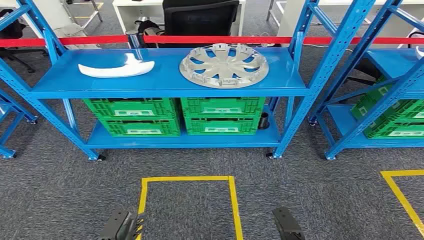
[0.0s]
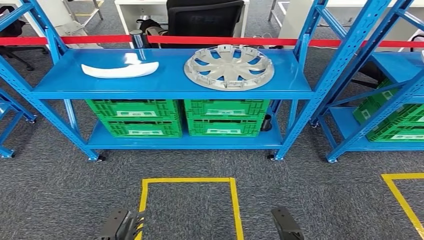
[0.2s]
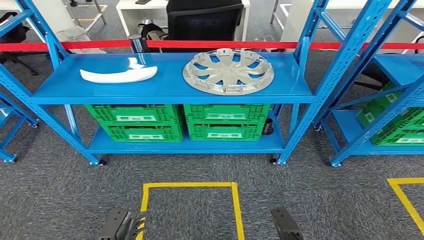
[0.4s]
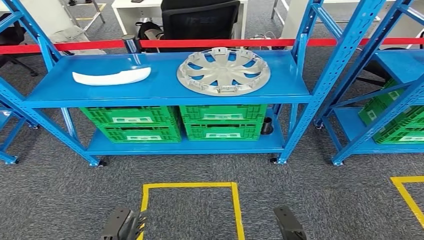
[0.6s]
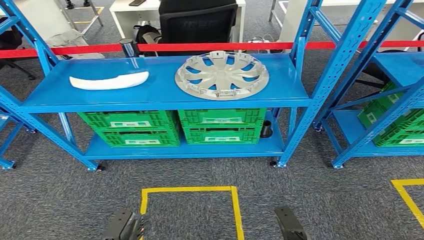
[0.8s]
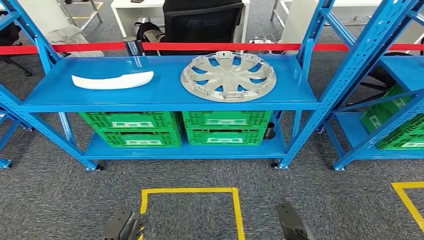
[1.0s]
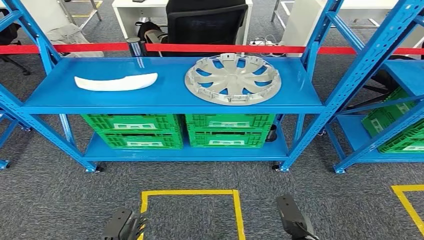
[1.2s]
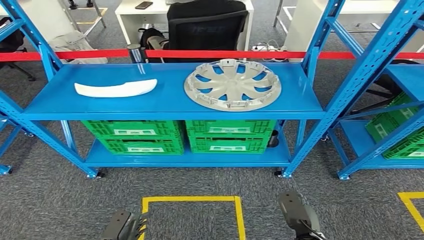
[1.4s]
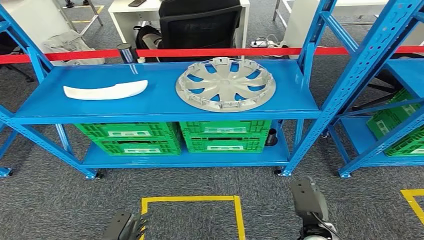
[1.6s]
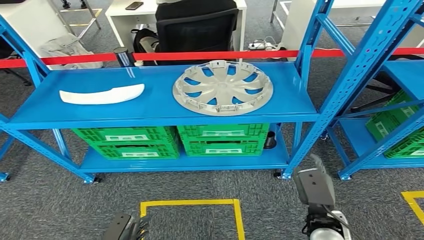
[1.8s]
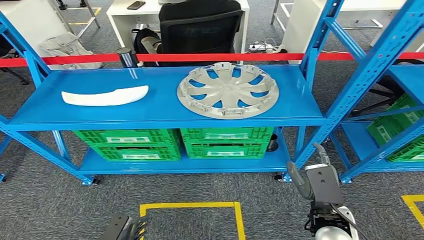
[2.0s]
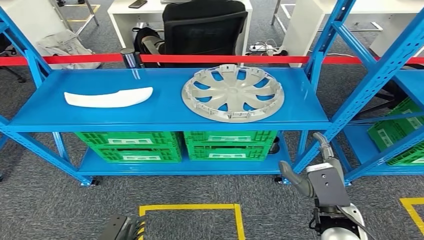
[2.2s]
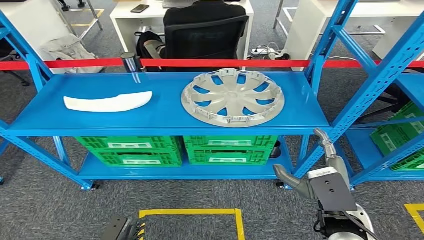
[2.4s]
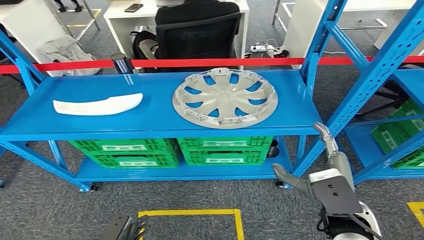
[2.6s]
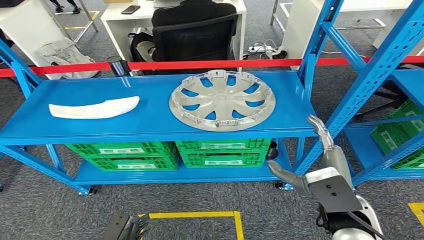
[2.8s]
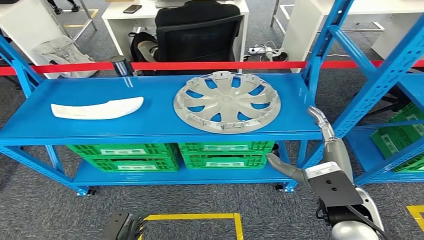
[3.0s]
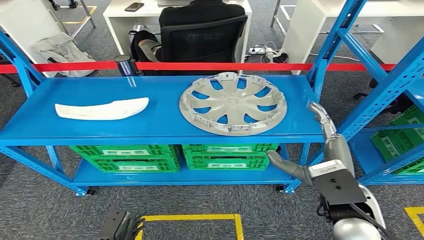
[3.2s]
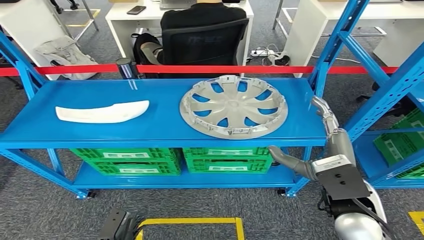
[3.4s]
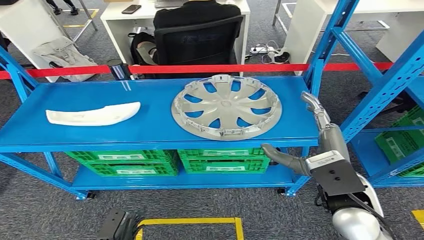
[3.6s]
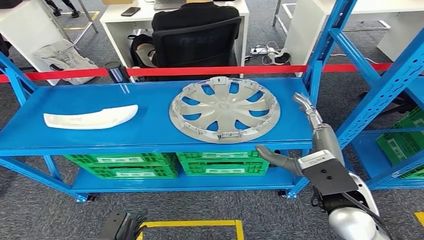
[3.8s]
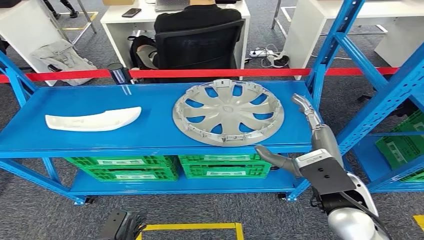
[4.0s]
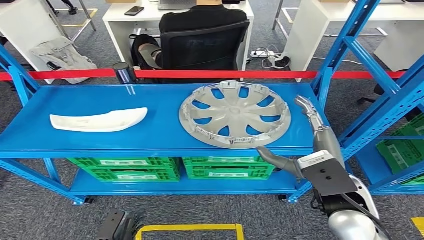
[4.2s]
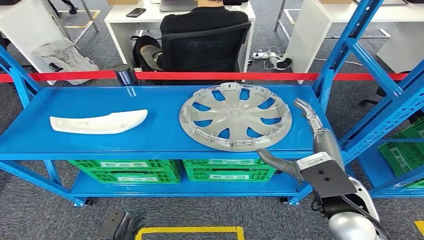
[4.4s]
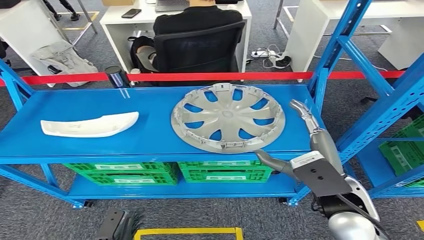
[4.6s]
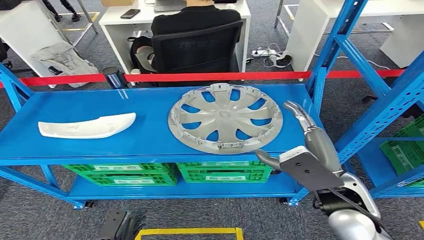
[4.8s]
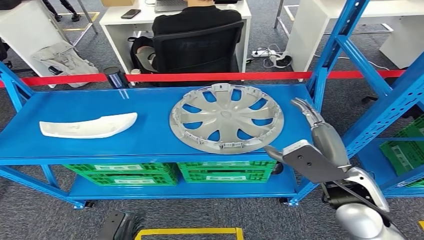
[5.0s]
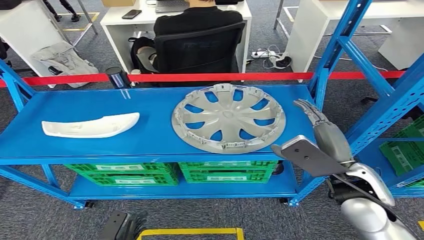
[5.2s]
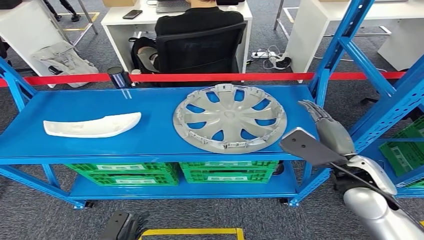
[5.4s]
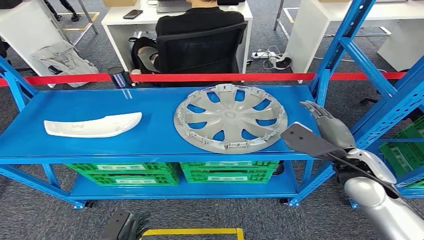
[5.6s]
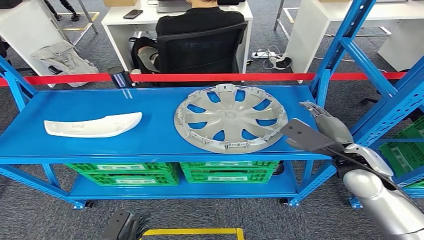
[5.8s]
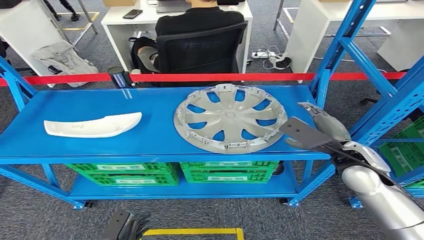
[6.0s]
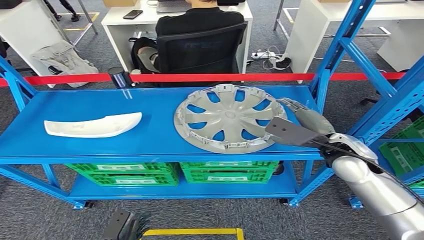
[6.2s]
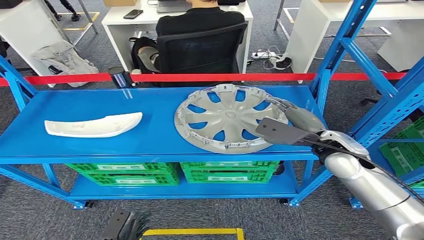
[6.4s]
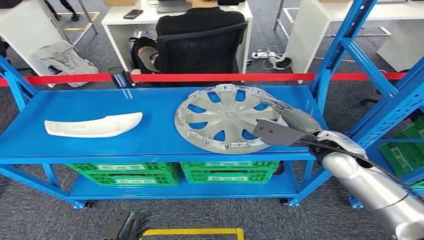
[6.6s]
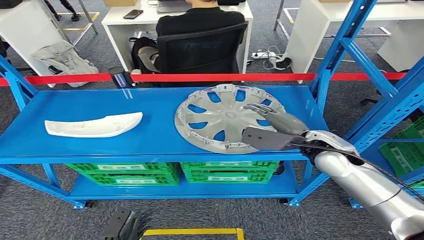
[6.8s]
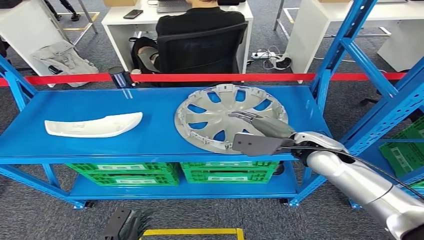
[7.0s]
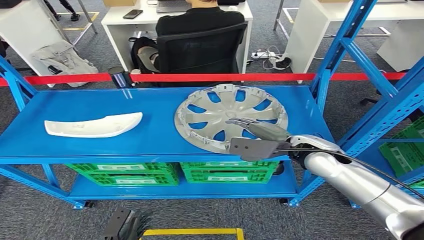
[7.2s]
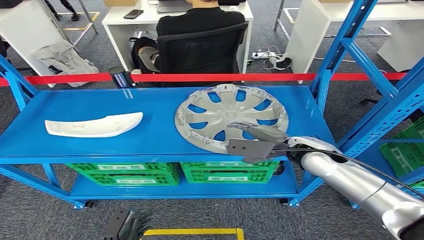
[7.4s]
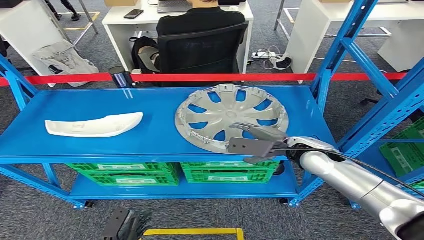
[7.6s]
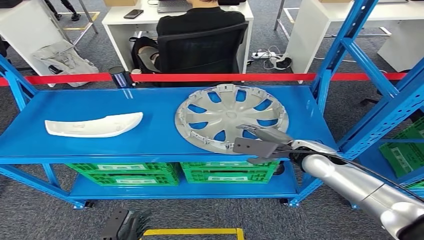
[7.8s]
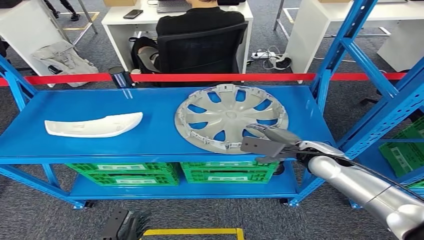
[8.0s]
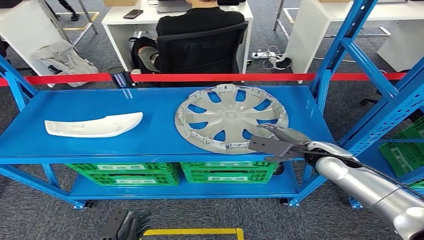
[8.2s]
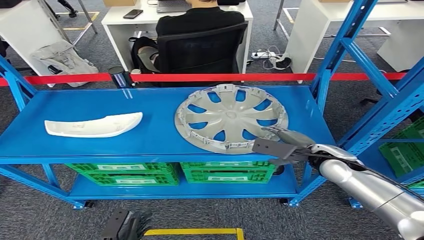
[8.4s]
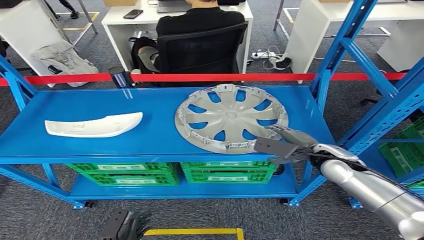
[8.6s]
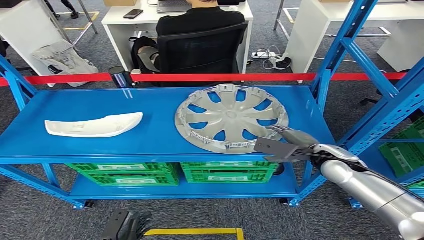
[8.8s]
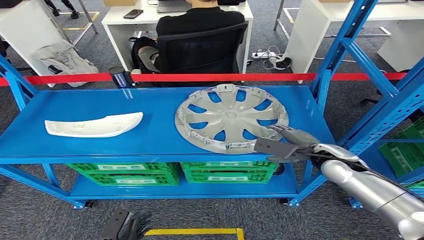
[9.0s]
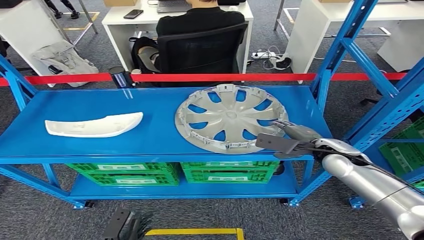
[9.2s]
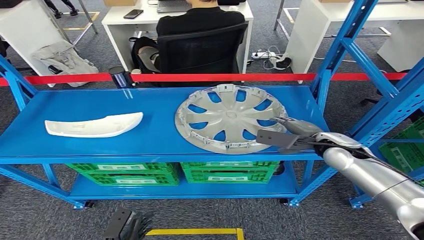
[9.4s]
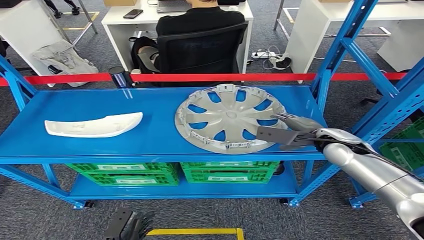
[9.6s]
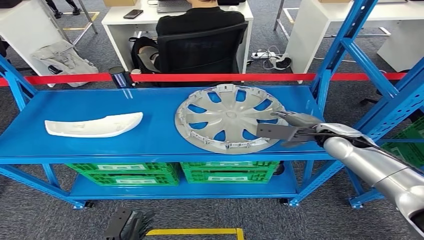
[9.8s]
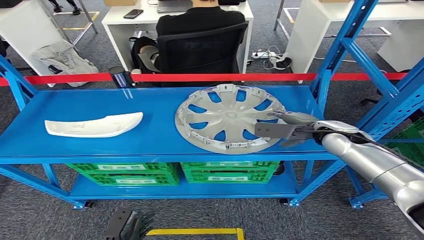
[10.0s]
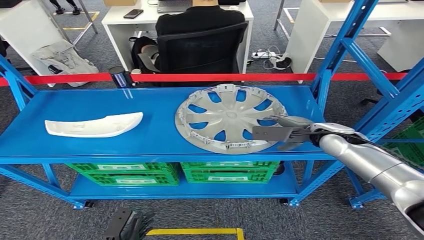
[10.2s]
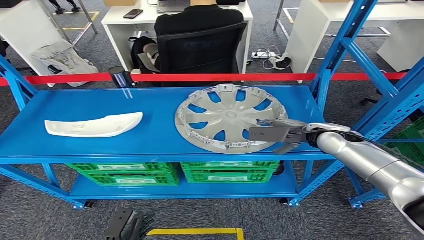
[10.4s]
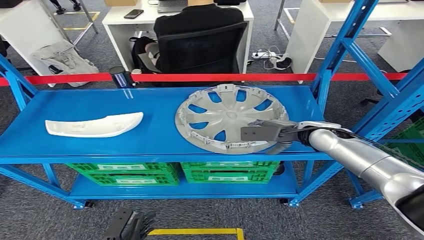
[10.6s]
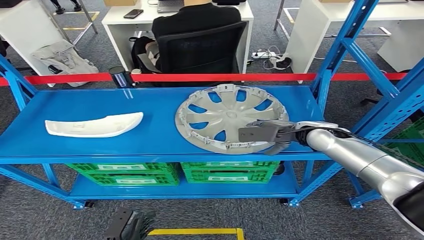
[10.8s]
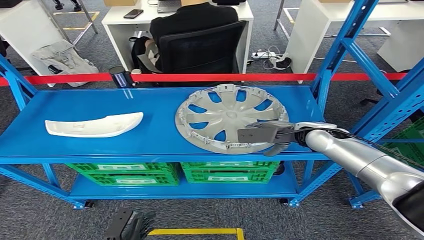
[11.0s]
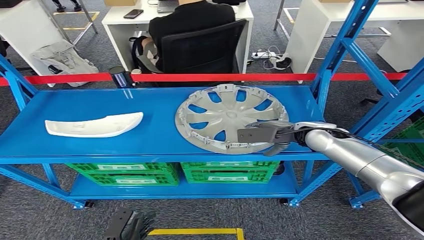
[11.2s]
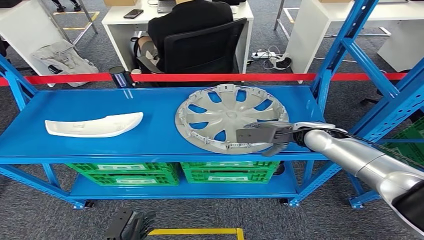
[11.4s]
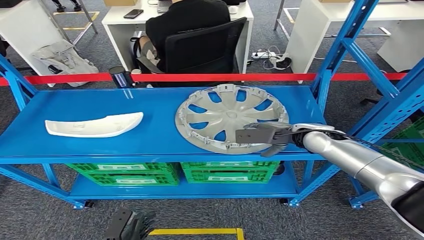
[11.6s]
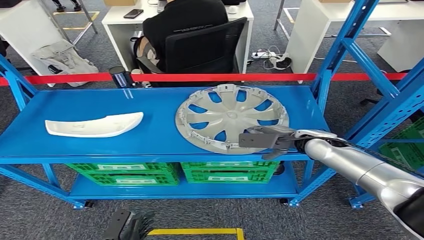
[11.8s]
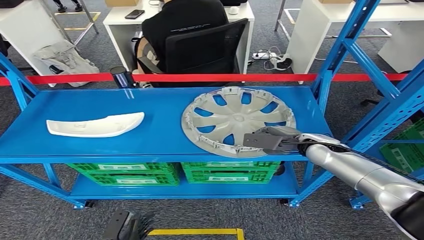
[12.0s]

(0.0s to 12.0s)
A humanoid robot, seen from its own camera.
6.0s - 7.6s: The right hand travels to the left and forward by about 10 cm.
7.6s - 9.0s: The right hand moves to the right, roughly 5 cm.
9.0s - 10.4s: The right hand travels forward by roughly 5 cm.
10.4s - 12.0s: There are only small adjustments of the hands.

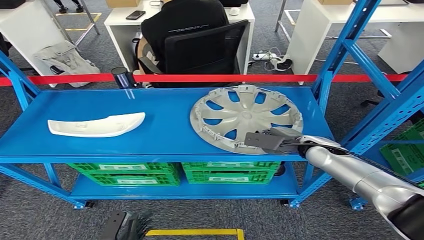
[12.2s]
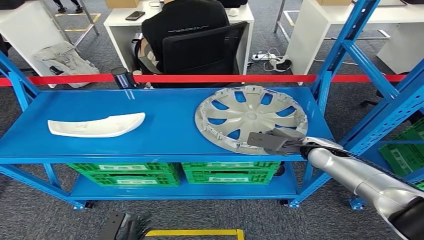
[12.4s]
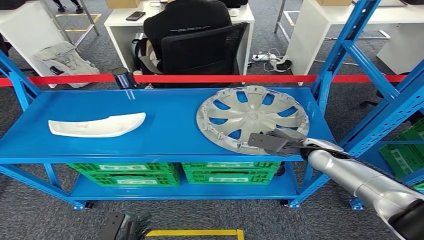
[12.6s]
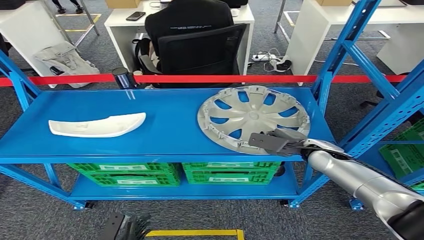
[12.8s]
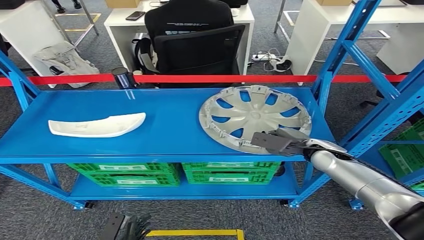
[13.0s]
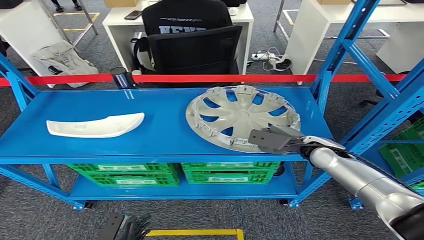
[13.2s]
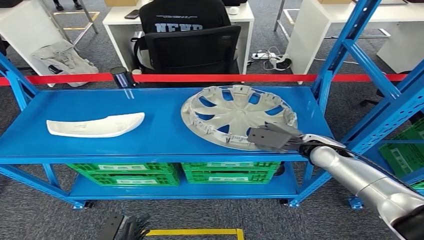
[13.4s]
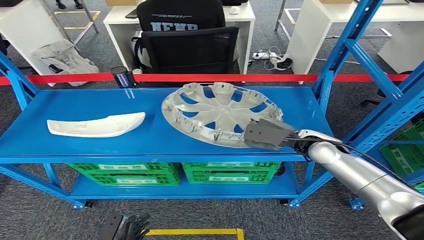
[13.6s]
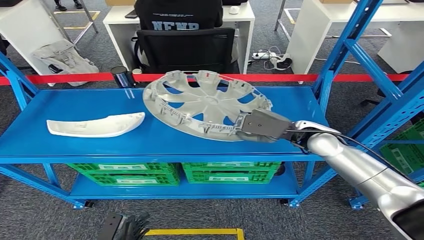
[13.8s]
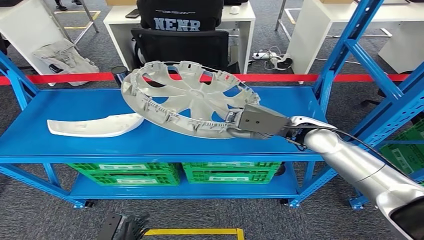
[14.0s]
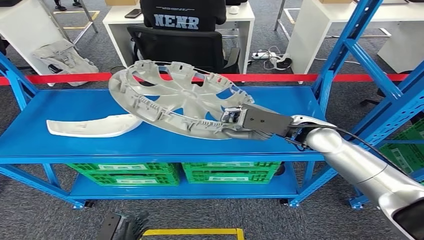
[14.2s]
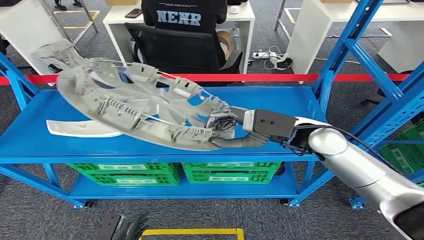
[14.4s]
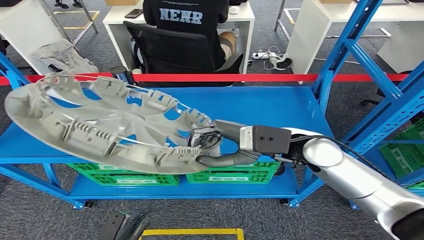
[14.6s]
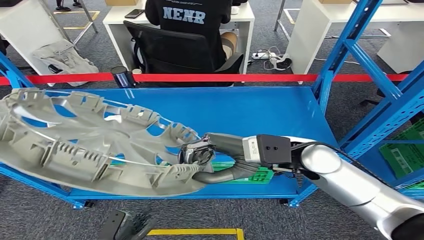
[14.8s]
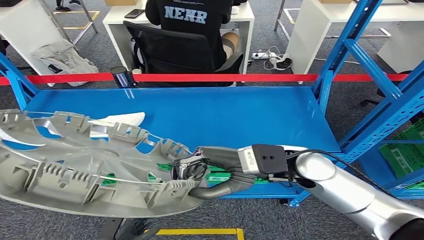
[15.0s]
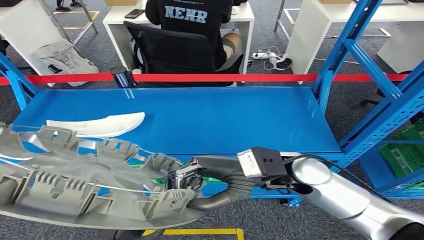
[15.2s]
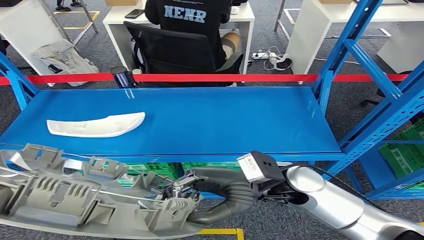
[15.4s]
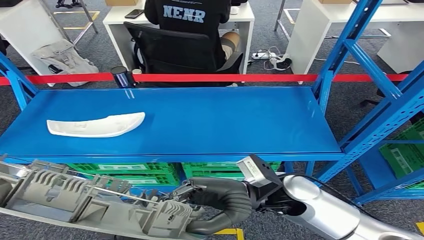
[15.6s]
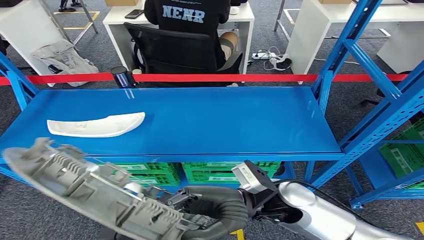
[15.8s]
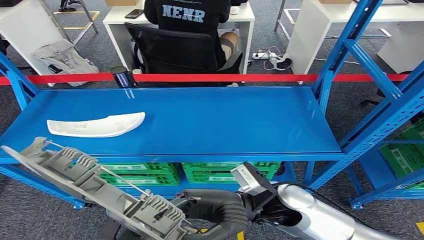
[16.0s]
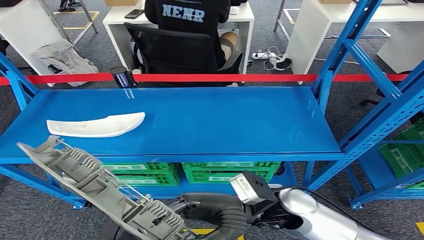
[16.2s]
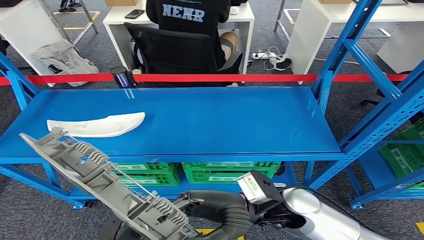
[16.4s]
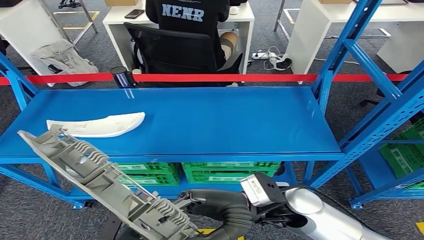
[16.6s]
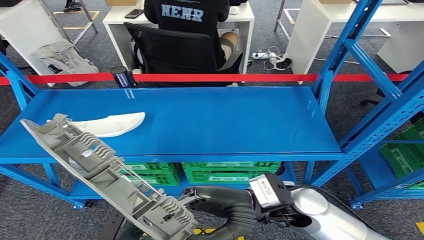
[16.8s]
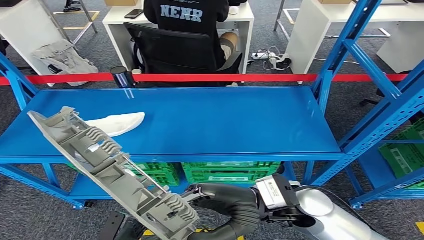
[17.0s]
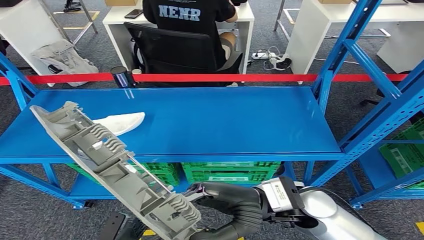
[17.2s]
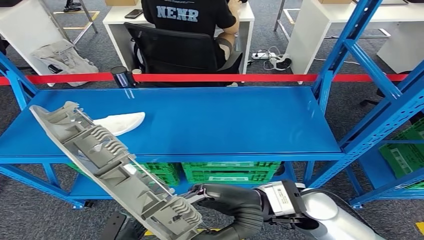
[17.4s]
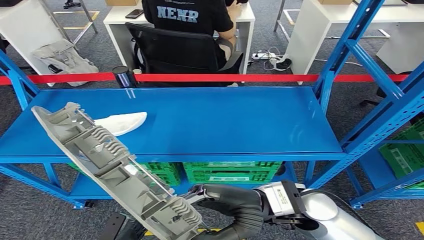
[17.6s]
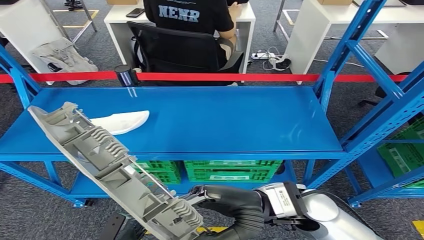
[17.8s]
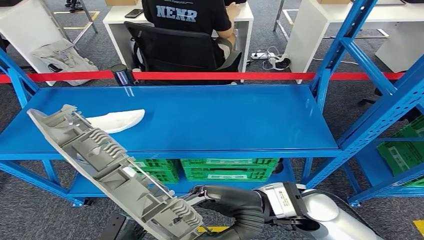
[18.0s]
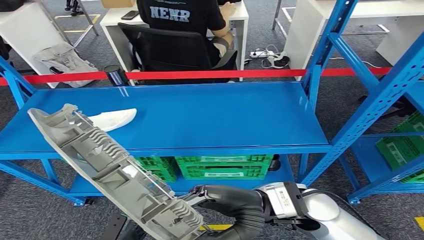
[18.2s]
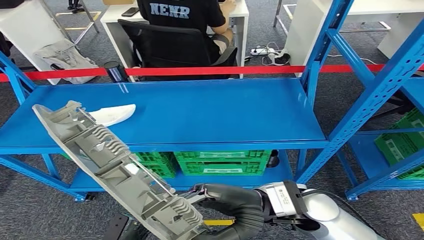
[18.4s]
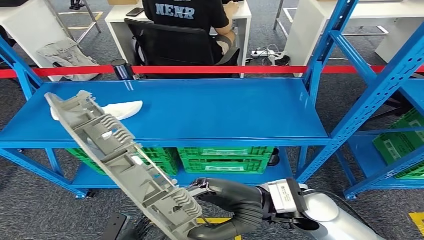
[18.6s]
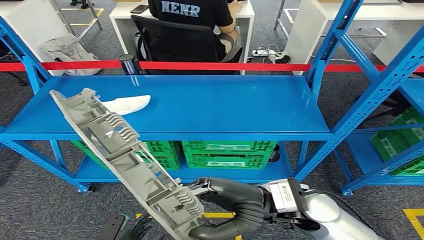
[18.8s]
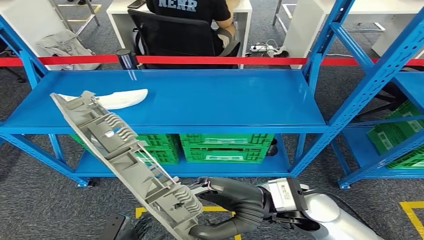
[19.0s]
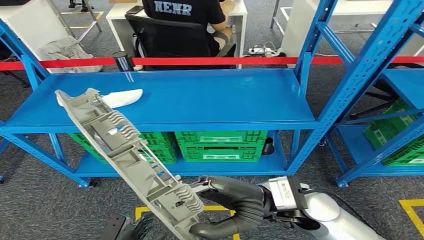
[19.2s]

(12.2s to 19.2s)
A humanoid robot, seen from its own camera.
Step, 12.2s - 15.4s: Pick up the small component from the shelf.
